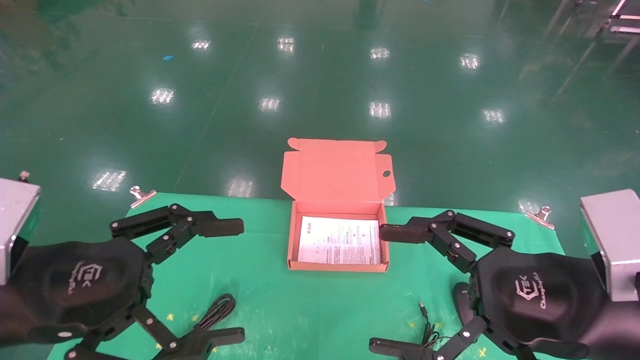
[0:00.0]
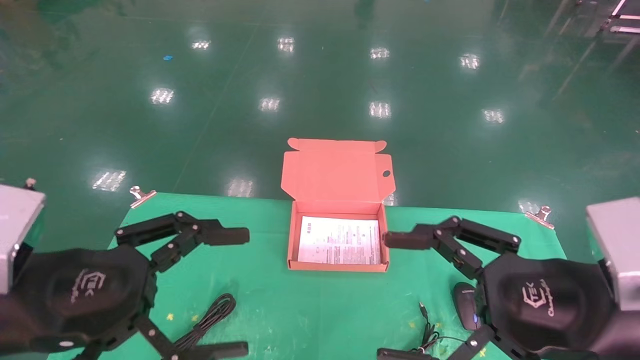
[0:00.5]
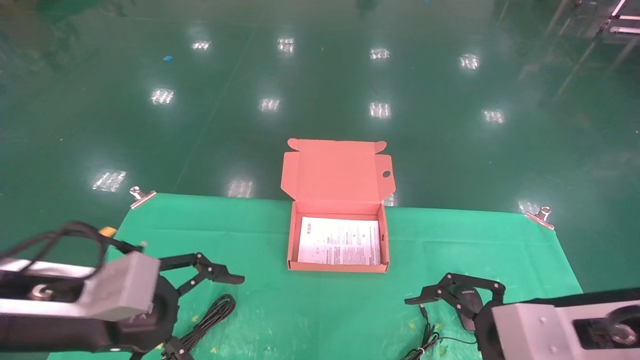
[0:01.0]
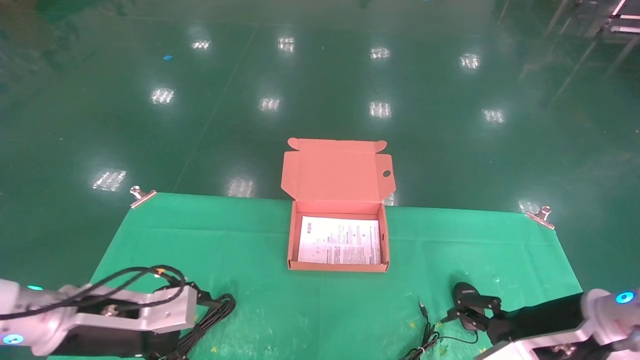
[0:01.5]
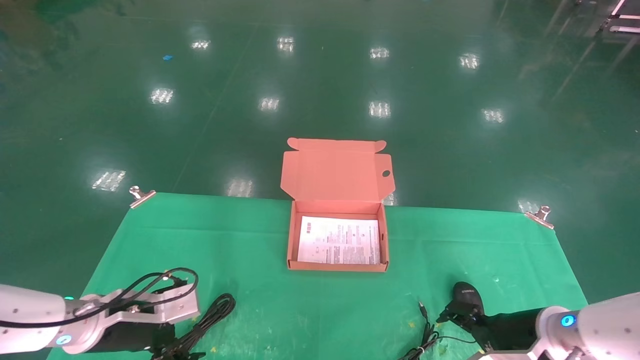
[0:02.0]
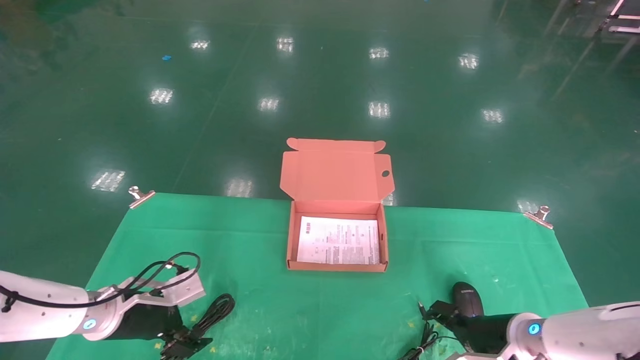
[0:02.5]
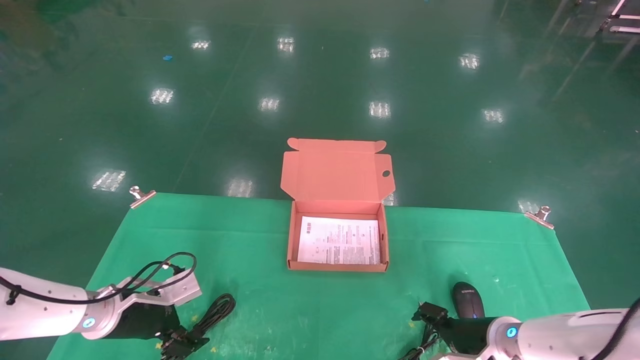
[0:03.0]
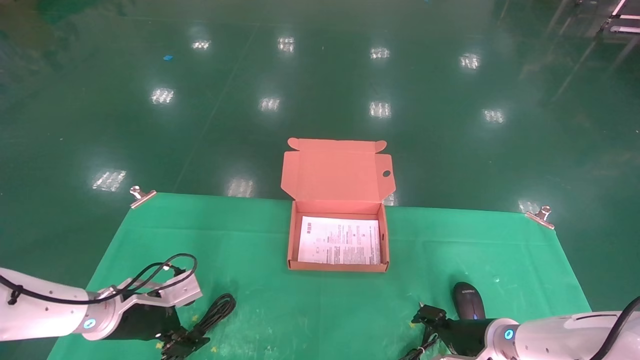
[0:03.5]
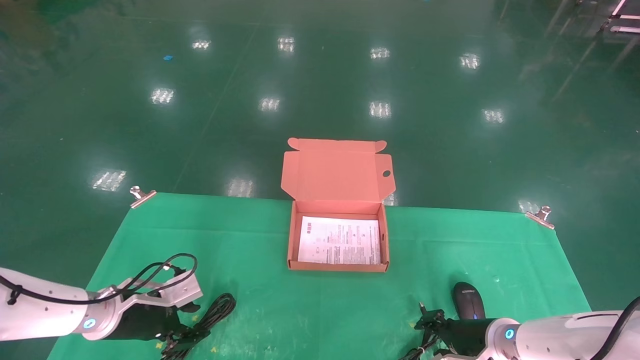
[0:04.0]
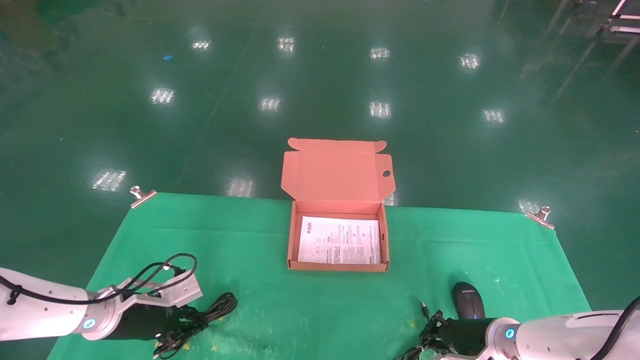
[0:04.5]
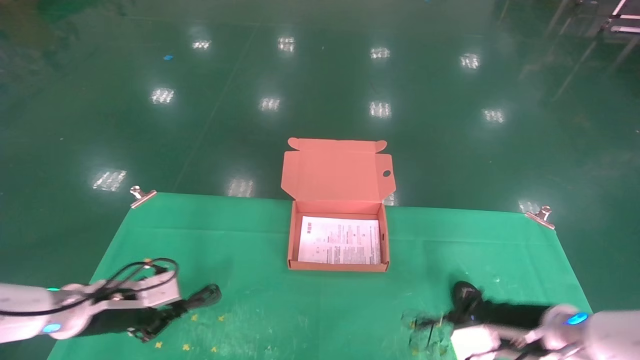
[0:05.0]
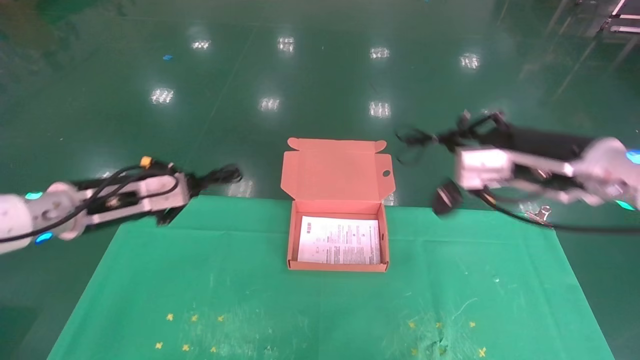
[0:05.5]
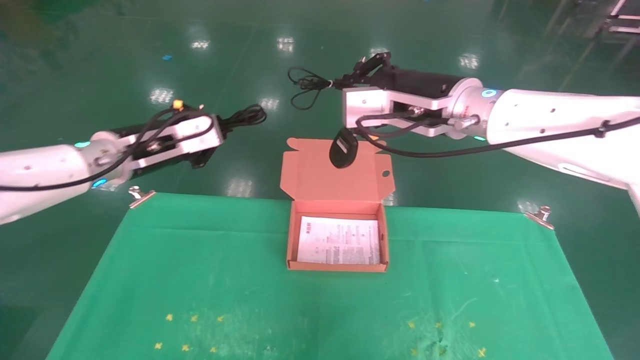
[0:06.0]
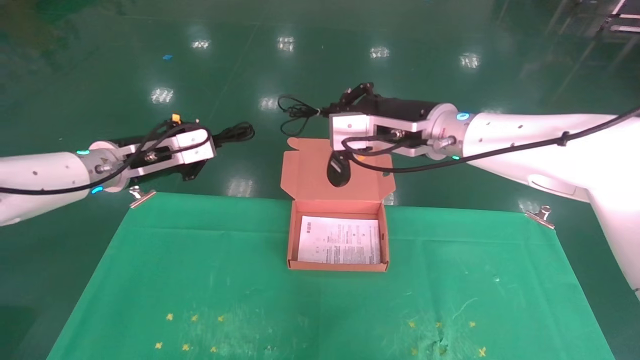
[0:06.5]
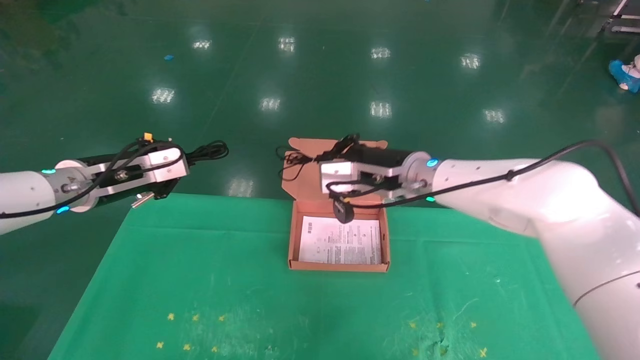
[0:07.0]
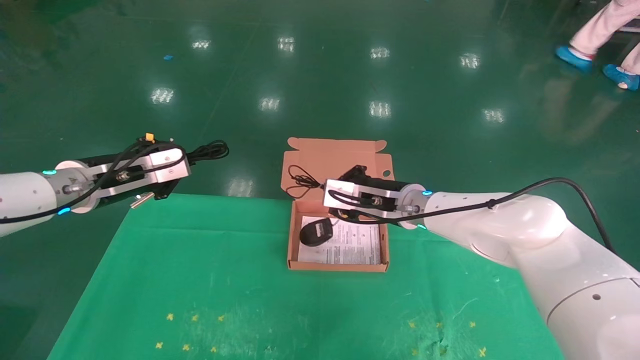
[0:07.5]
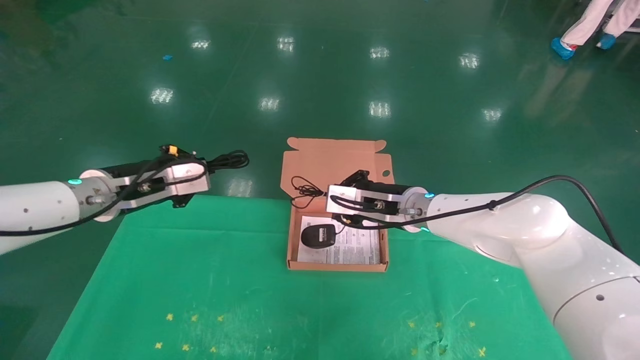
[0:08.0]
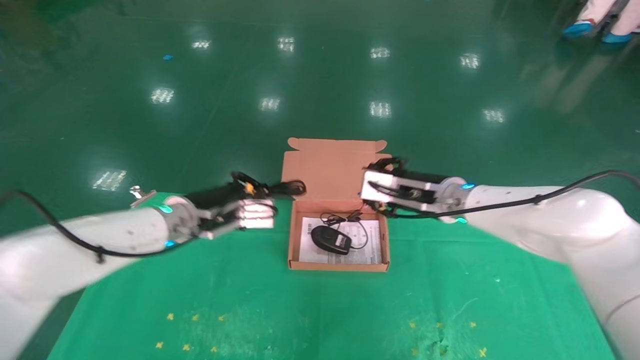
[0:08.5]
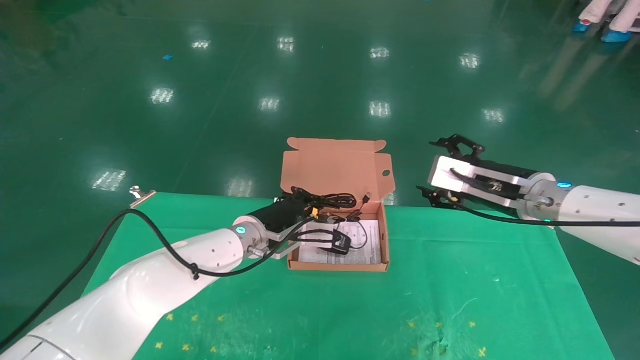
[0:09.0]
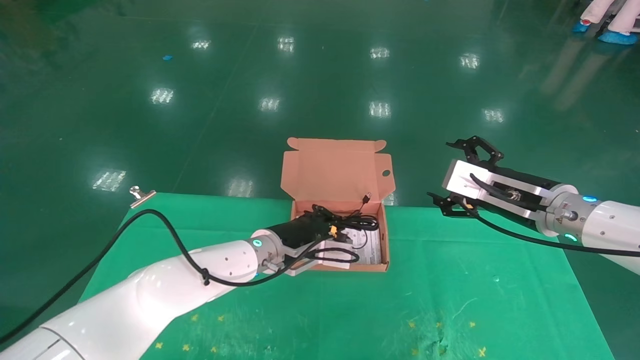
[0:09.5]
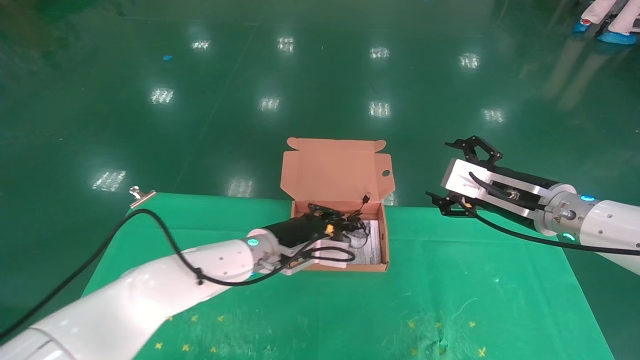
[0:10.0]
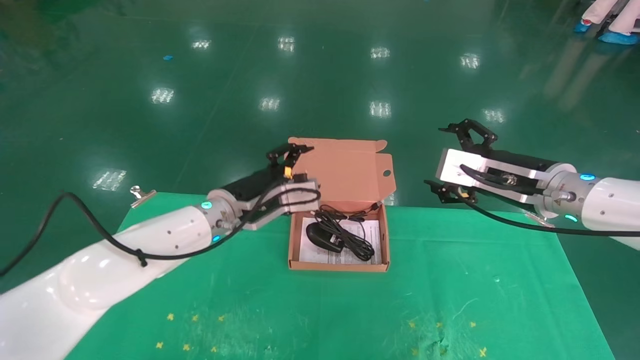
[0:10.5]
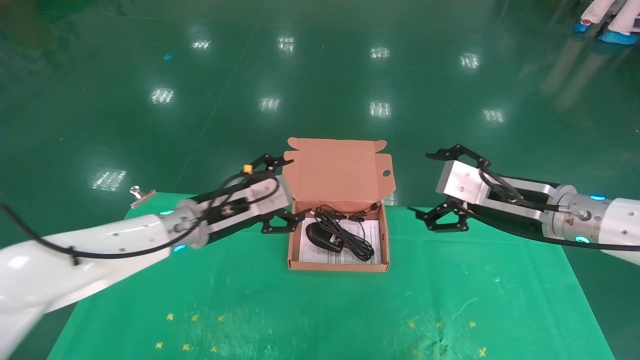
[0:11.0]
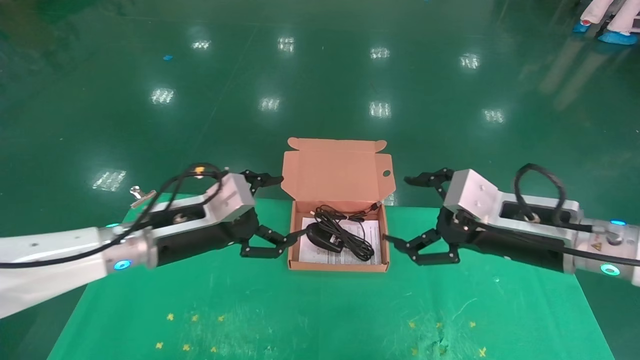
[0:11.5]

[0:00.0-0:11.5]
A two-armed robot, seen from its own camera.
Task of the whole recording: grasp data cable left put into box grasp mouse right put into box.
Step, 0:01.0 to 0:04.5: Grab and pick up both the mouse and power cord from the accessory packaging area at the same time.
Step, 0:05.0 to 0:10.0: Place the mouse and power cord into the box.
0:00.0 to 0:02.0: Both grippers move downward and forward, about 20 cm.
0:02.0 to 0:04.0: The left gripper is displaced forward by some 5 cm, and closes, while the right gripper is displaced downward by about 5 cm, and closes up.
0:04.0 to 0:06.0: Both grippers travel together upward, about 30 cm. The right gripper closes. The left gripper closes its fingers.
0:06.0 to 0:07.5: The right gripper travels downward and forward by roughly 15 cm. Meanwhile the left gripper changes place by approximately 5 cm.
0:07.5 to 0:09.5: The left gripper travels to the right and downward by roughly 30 cm. Meanwhile the right gripper travels to the right and backward by about 20 cm, and opens.
0:09.5 to 0:11.5: The right gripper is displaced backward by some 10 cm. Meanwhile the left gripper heads to the left, backward and upward, covering some 20 cm, and opens.
